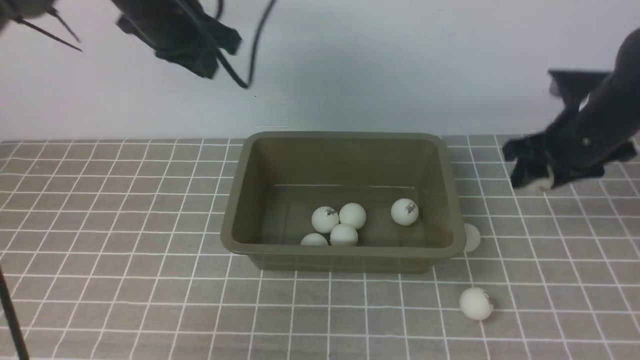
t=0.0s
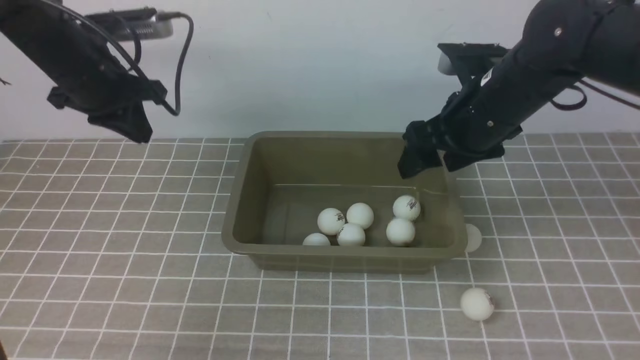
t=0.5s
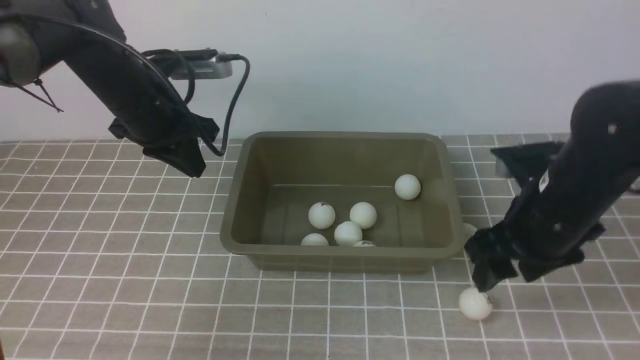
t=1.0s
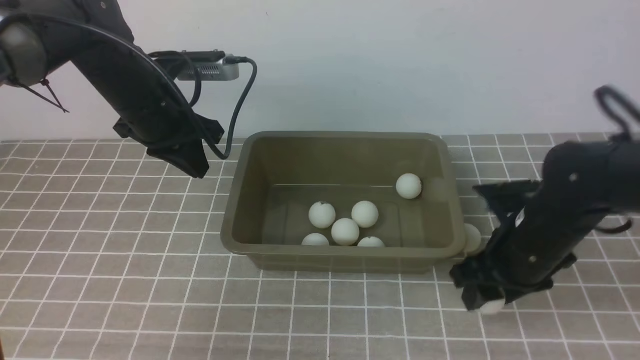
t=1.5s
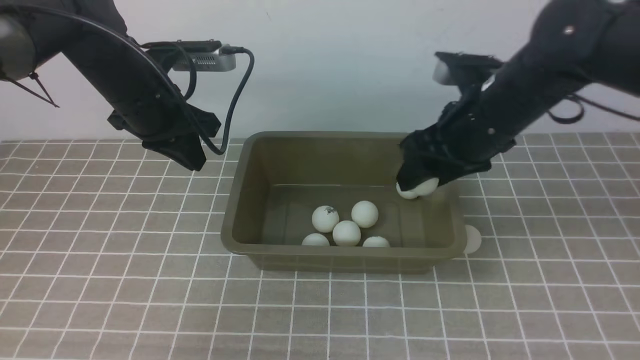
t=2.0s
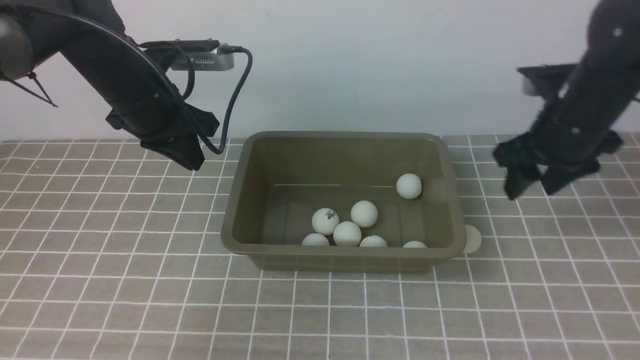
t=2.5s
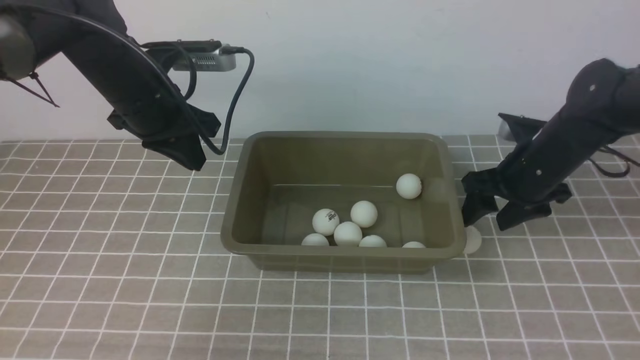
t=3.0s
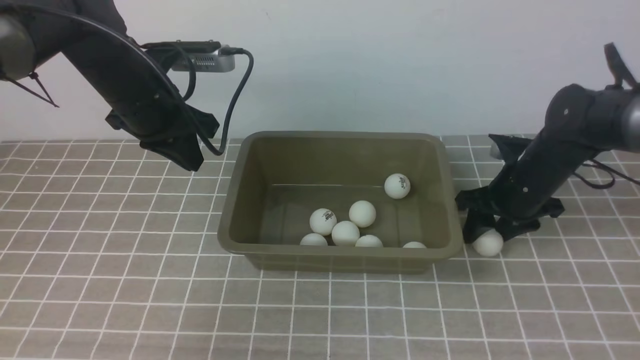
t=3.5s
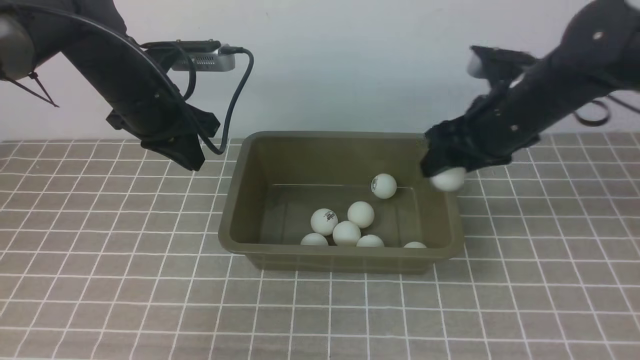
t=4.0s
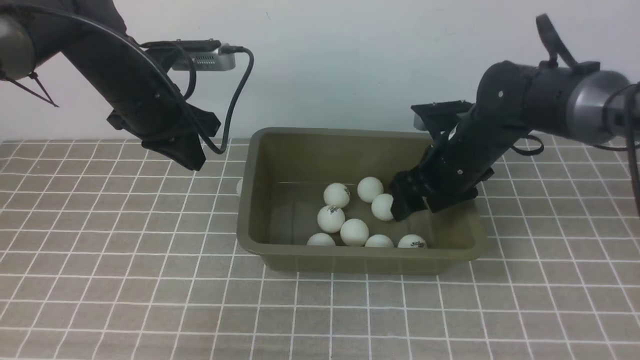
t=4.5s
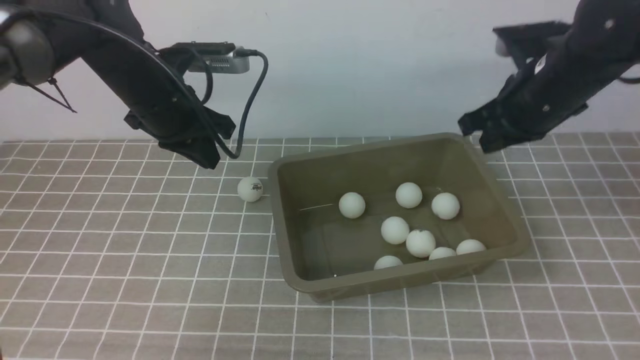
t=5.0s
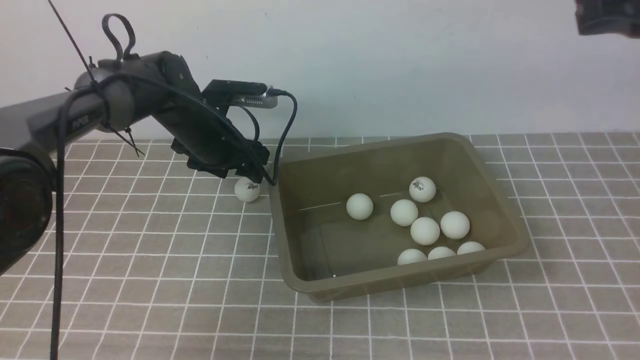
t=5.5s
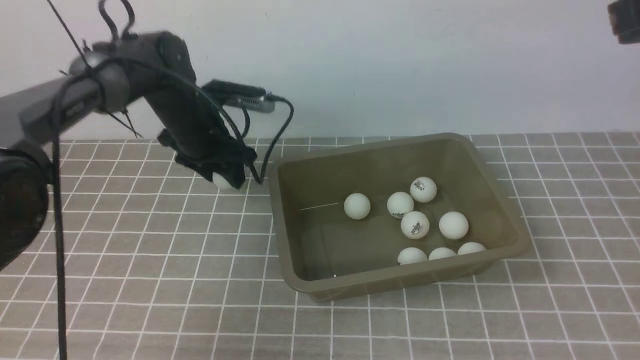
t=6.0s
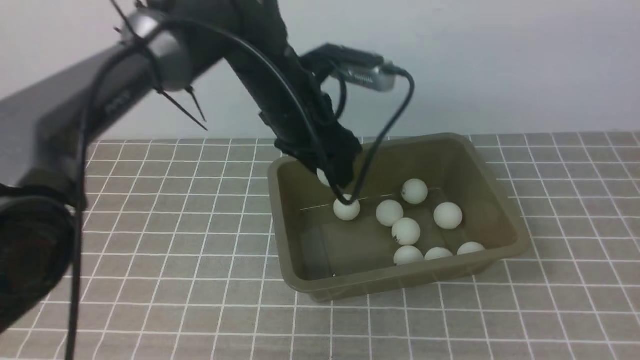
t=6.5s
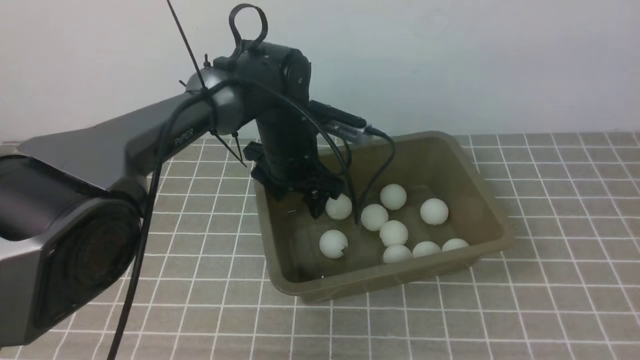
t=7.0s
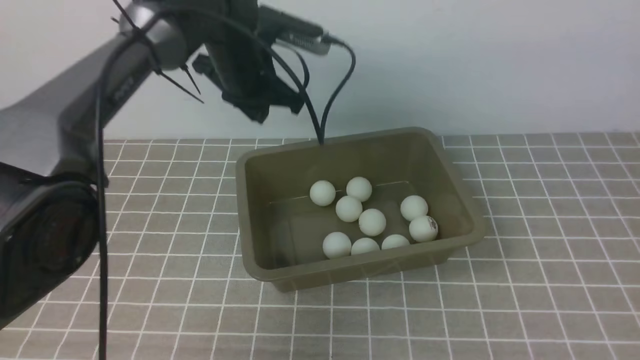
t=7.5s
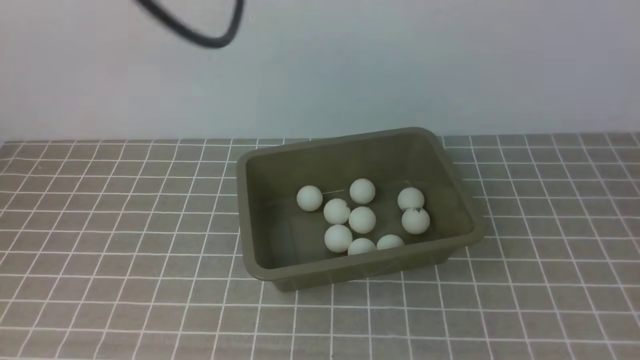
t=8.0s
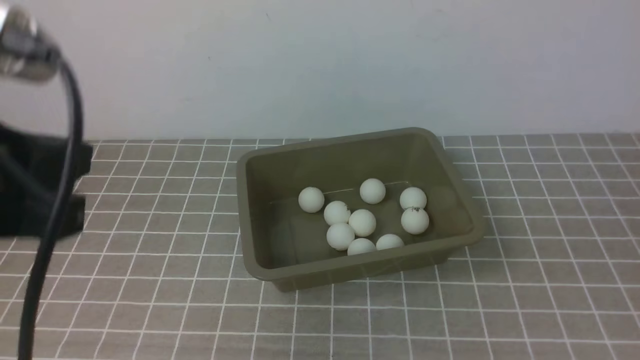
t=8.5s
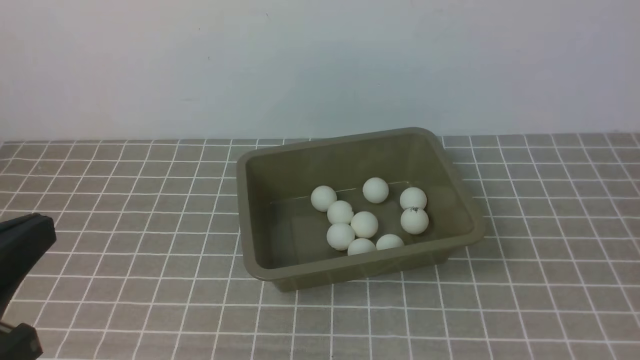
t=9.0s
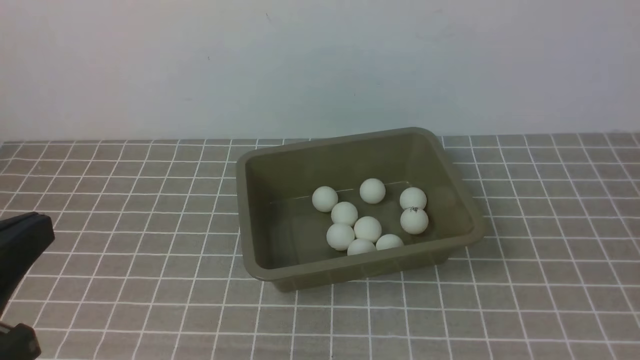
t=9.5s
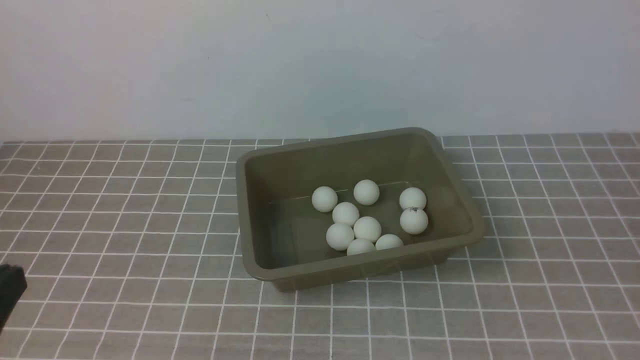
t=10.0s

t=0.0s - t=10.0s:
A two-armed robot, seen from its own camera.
Step, t=1.0s - t=1.5s: use the right arm to clamp the table tennis ball closest to it.
Step, t=2.5s - t=3.5s: use the right arm to clamp the table tennis ball closest to it.
Step, t=4.0s - t=4.5s: use the right arm to put the table tennis ball into the box.
Step, t=5.0s - t=6.0s: use the left arm to clamp the table tennis ball closest to it.
t=0.0s - t=2.0s: The right gripper swings up and down, some 10 cm each way, with 2 reversals, while the left gripper travels downward by roughly 5 cm.
t=2.0s - t=4.0s: The right gripper moves about 10 cm downward and comes back.
t=4.0s - t=6.0s: The left gripper opens up; the right gripper is displaced upward and backward by about 25 cm, and closes up.
t=6.0s - t=8.0s: The right gripper shifts approximately 15 cm backward; the left gripper is displaced upward and backward by about 30 cm, and closes up.
t=8.0s - t=10.0s: The right gripper shifts roughly 10 cm backward and downward, while the left gripper goes roughly 35 cm backward, downward and to the left.

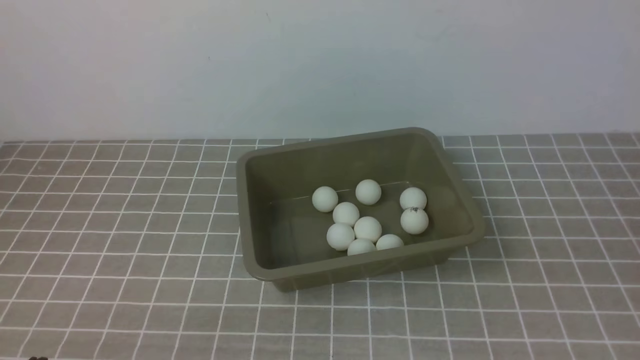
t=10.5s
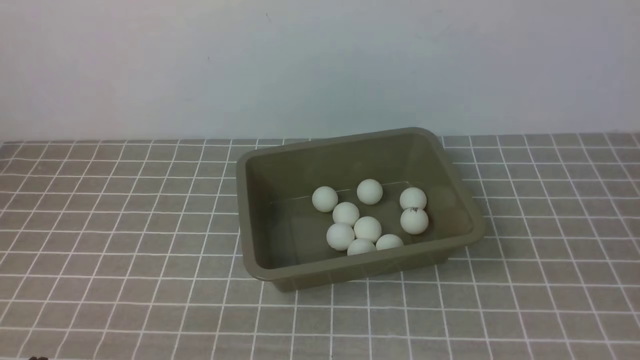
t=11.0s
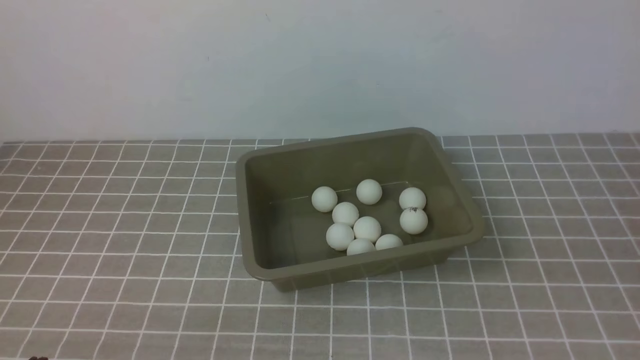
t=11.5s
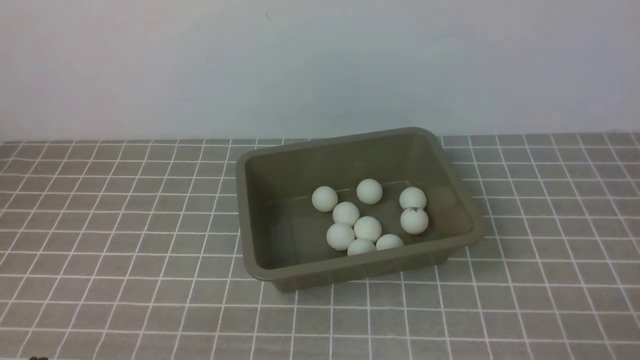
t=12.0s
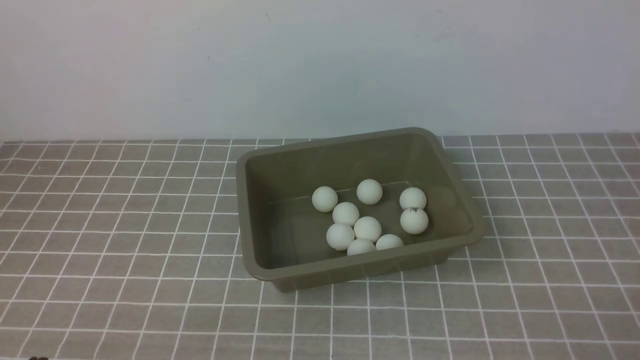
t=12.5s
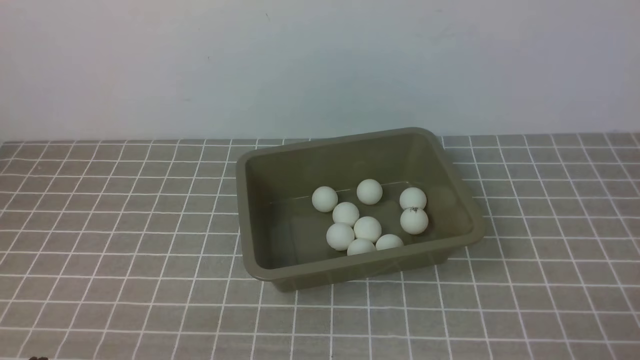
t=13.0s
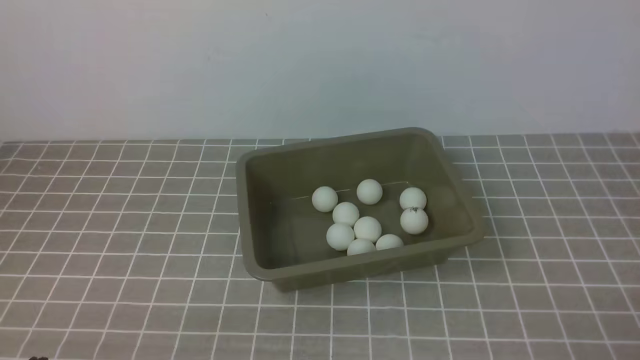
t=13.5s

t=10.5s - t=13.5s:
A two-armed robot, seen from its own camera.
t=12.0s - t=13.5s: Neither gripper changes place.

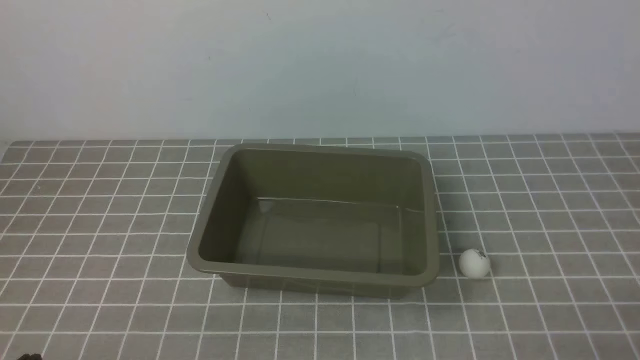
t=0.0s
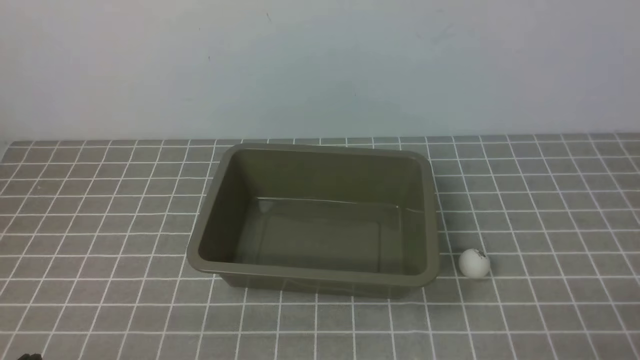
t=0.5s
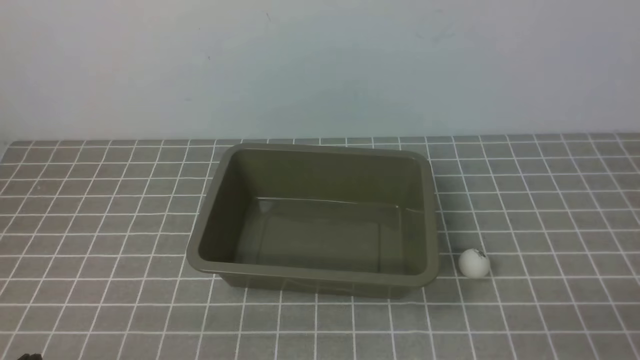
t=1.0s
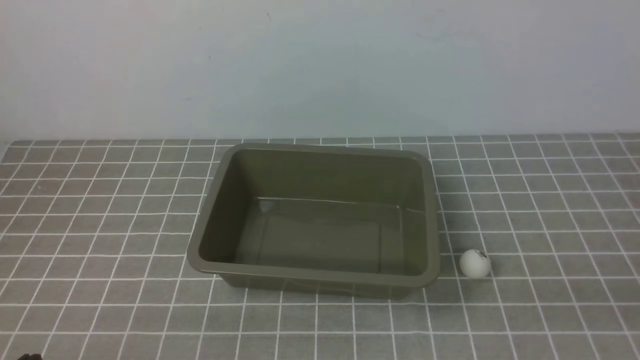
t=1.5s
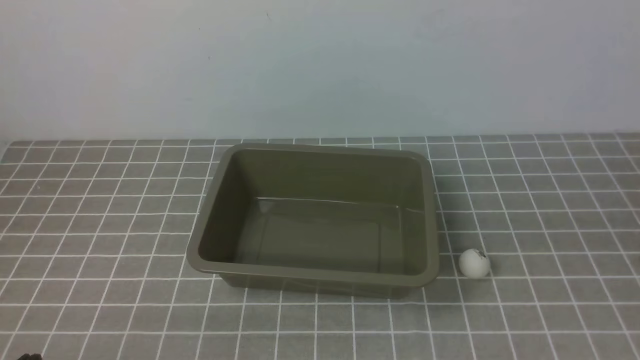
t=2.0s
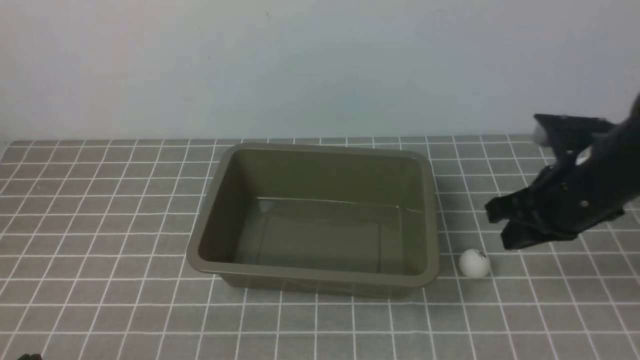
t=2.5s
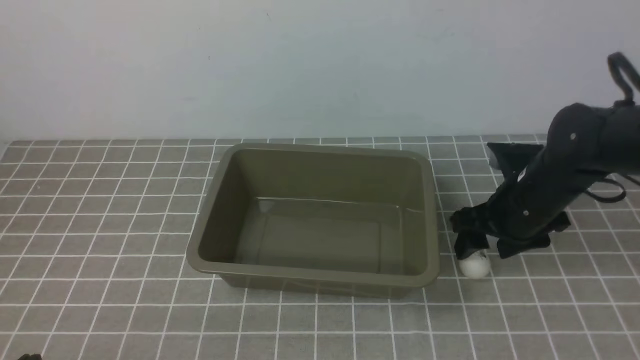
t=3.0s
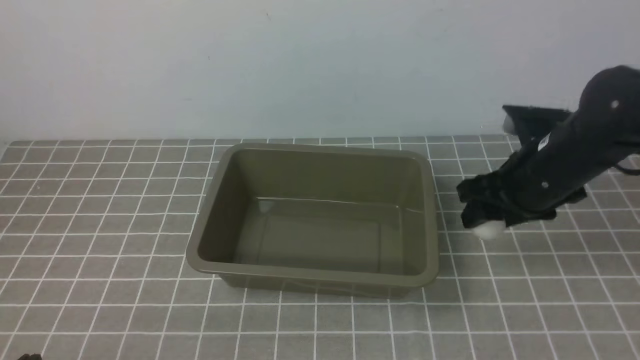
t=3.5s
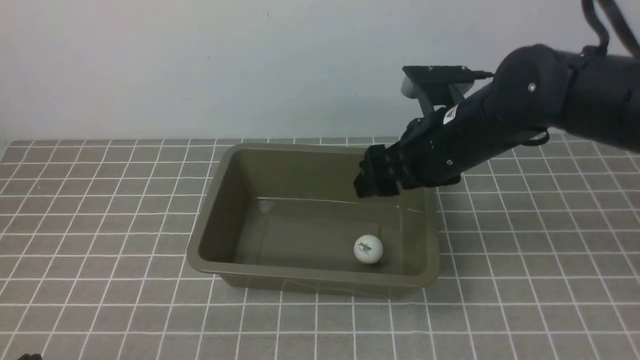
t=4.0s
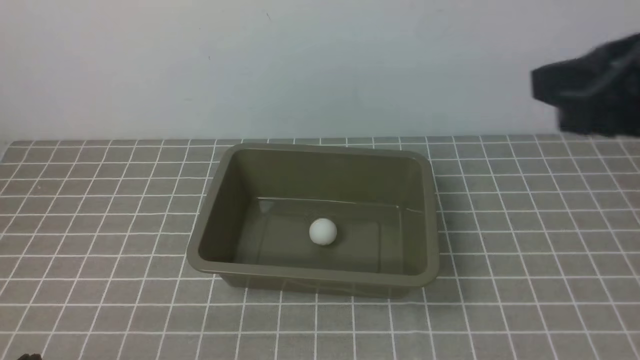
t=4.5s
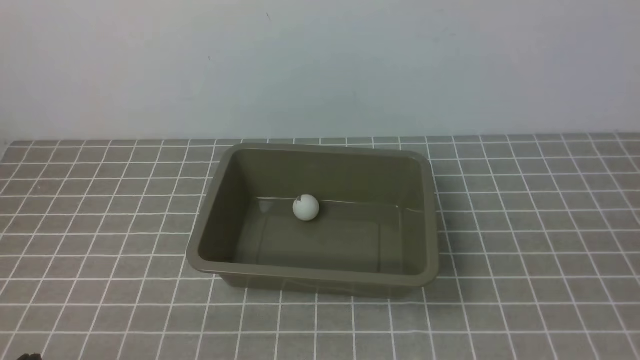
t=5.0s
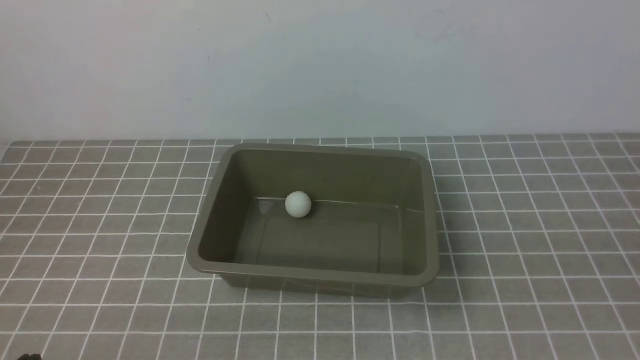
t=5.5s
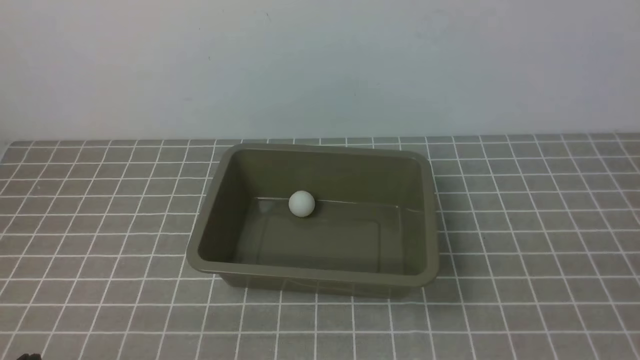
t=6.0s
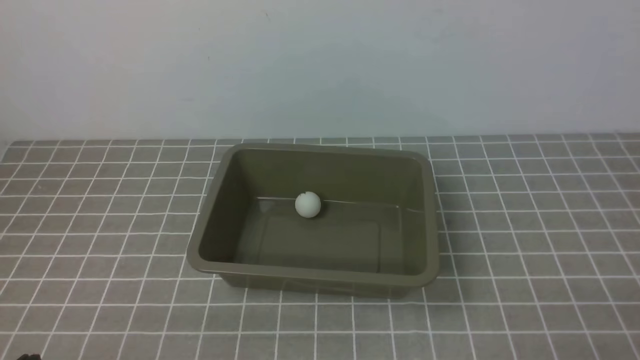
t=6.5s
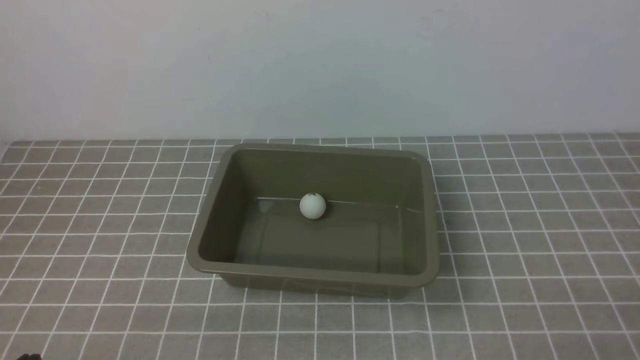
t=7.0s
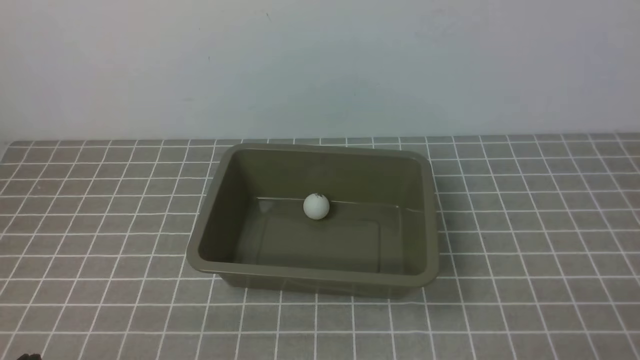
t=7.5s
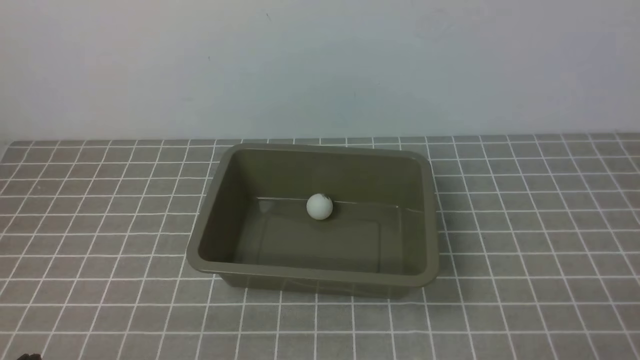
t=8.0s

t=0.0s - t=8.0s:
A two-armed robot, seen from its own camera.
Step, t=0.0s - t=3.0s: use the right arm to clamp the table tennis ball closest to it.
t=2.0s - t=4.0s: The right gripper goes roughly 25 cm forward and to the left, and opens.
t=4.0s - t=6.0s: The right gripper moves backward and to the right, some 35 cm, and closes.
